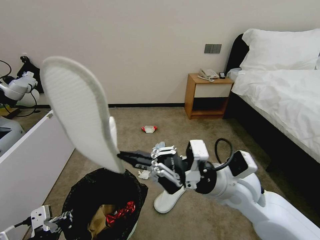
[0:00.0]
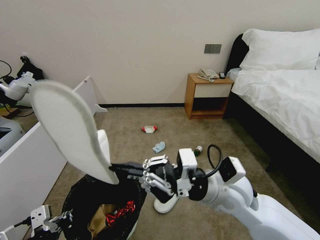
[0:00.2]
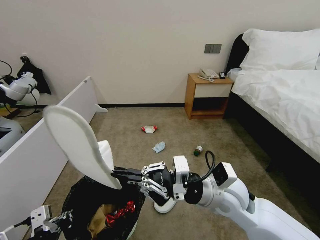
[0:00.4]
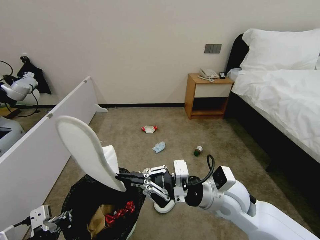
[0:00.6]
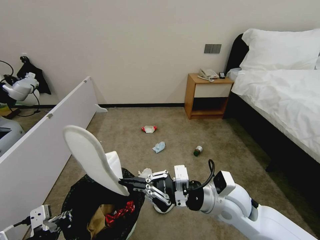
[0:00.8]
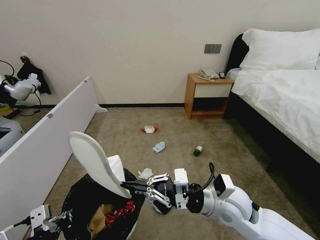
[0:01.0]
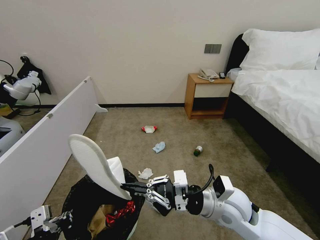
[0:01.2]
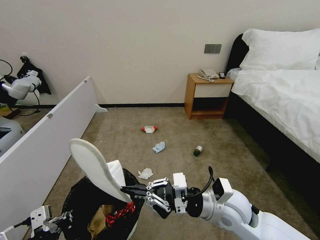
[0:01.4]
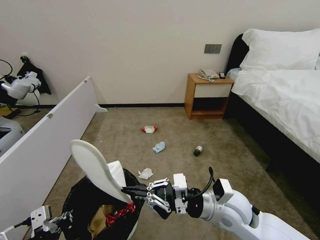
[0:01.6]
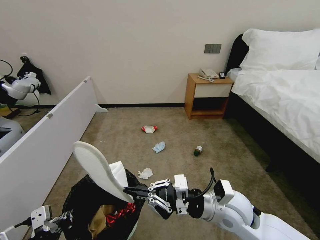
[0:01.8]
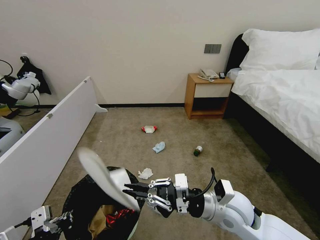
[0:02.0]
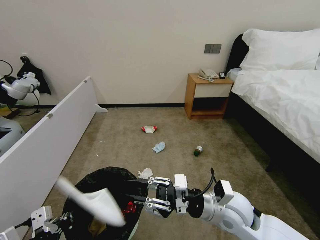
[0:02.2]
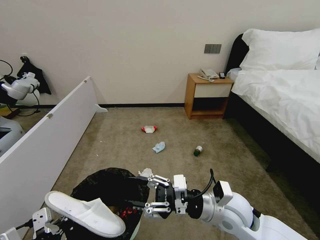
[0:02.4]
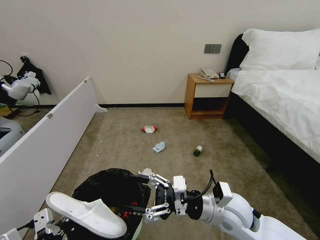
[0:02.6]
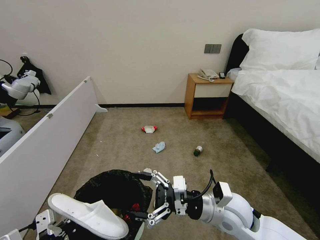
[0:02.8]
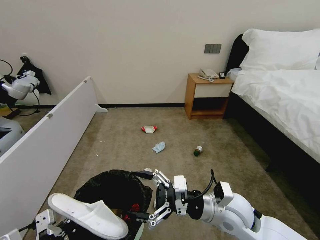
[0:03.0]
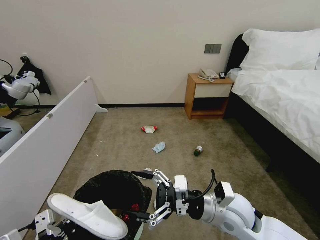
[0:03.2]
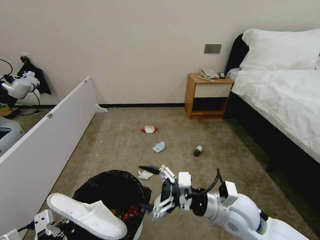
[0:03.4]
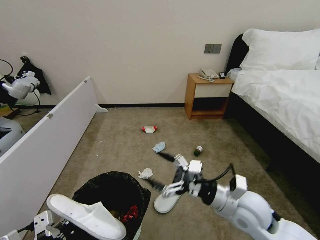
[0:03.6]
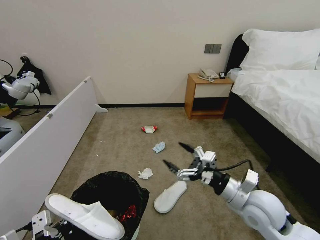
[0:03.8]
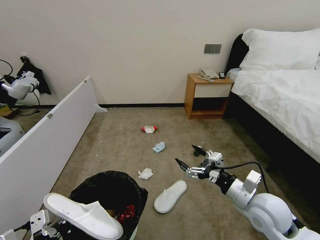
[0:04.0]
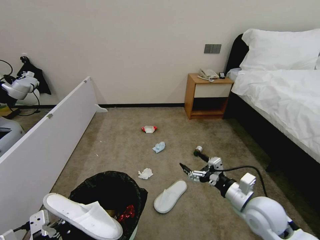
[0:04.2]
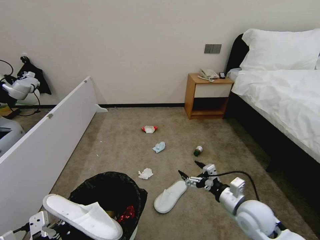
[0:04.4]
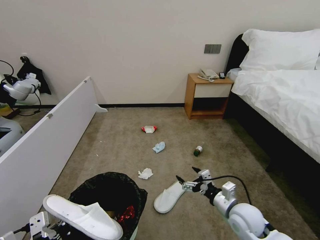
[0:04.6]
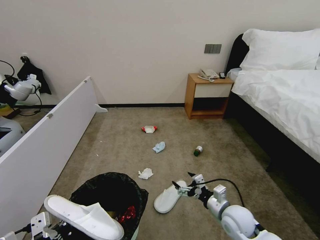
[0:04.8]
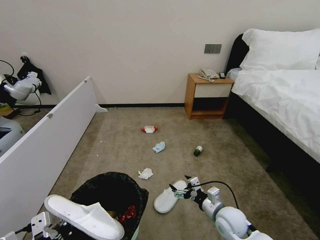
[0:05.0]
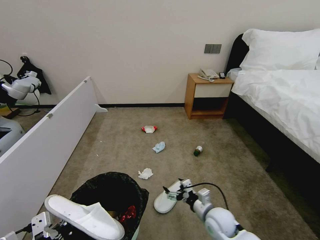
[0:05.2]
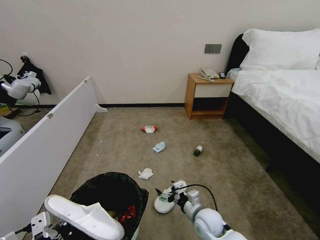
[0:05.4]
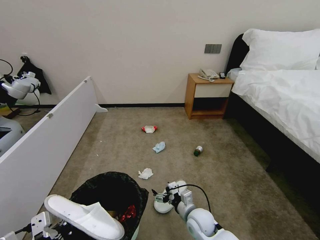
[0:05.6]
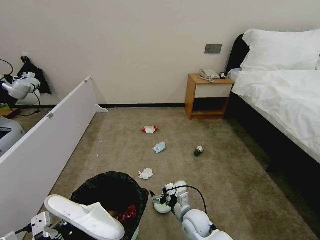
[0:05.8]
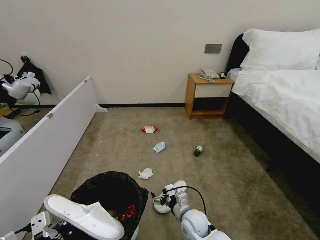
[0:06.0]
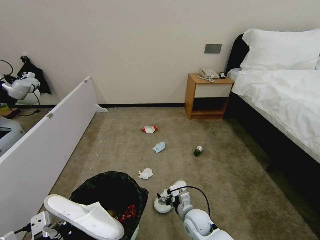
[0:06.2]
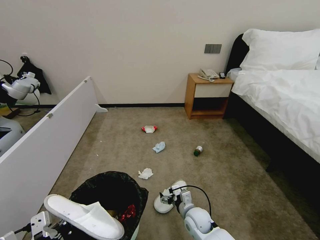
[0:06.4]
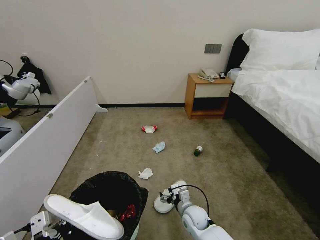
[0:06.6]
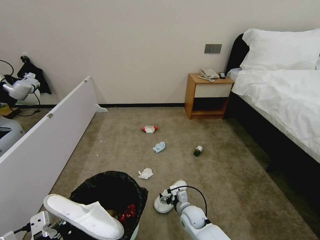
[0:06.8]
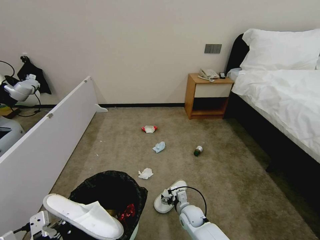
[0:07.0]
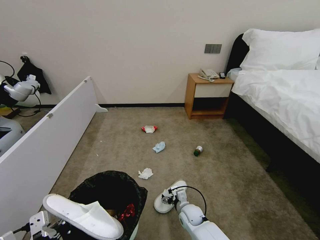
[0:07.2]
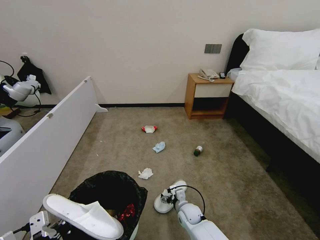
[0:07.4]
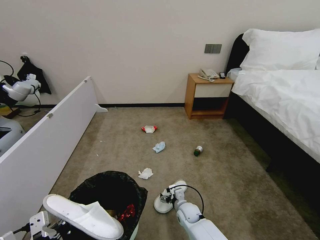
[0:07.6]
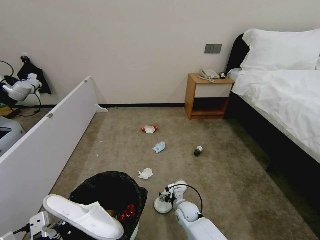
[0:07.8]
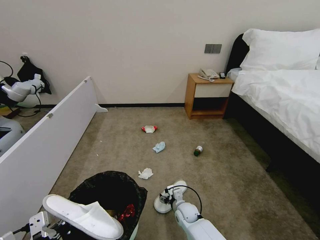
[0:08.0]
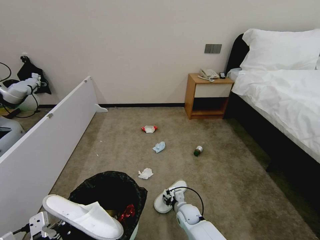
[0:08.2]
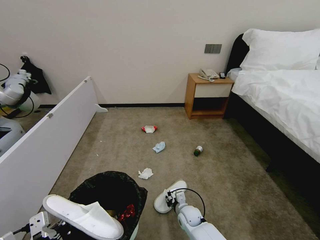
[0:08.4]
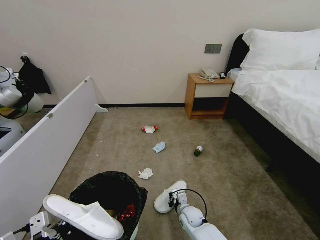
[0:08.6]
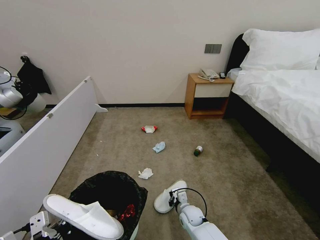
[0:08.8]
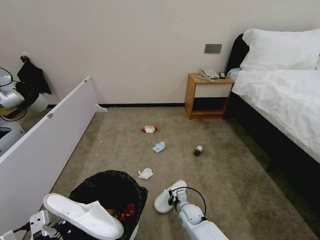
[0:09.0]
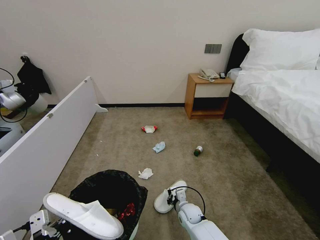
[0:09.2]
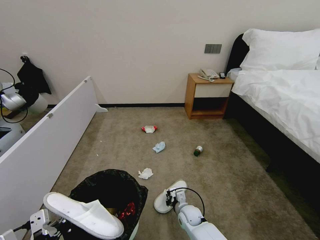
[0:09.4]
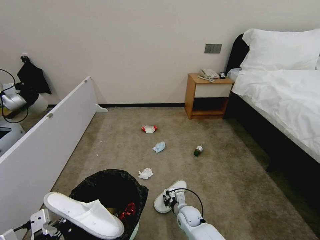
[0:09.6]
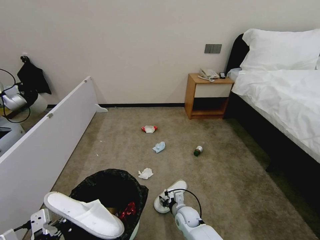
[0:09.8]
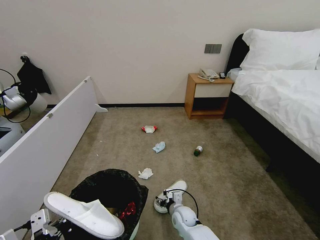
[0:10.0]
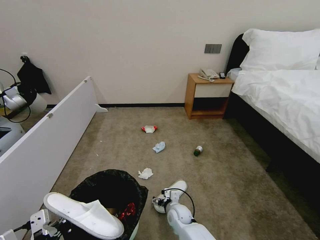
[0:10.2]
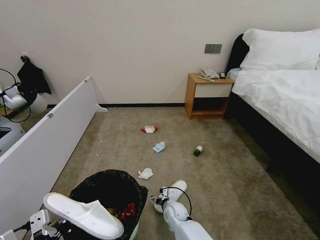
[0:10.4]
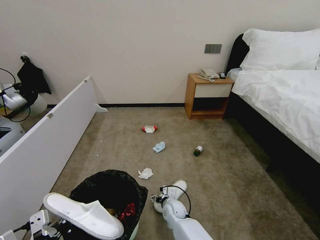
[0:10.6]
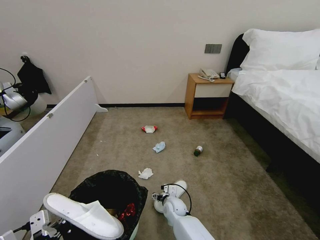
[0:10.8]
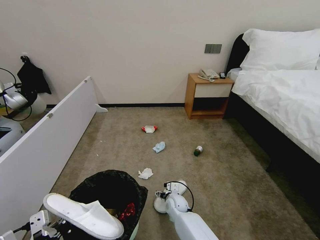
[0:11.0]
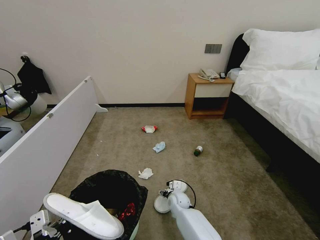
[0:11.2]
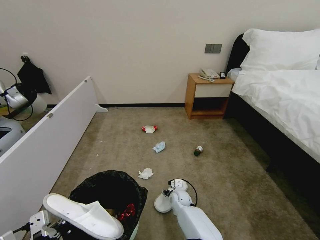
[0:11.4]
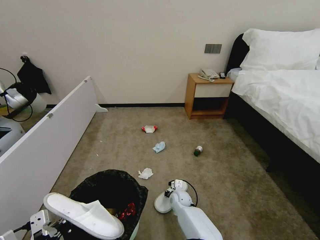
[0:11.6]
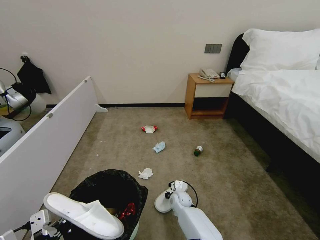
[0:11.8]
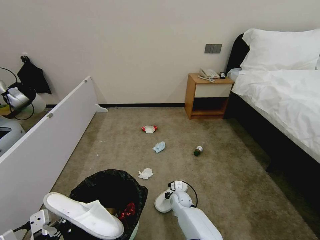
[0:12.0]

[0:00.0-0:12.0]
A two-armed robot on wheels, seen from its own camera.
Task of the whole recording: Pick up the trash bin, then pick up the garbage from the floor and place it into the trash bin.
0:00.0 to 0:01.6: The right gripper shifts about 10 cm downward.
0:01.6 to 0:03.0: The right gripper opens its fingers.
0:03.0 to 0:04.4: The right gripper goes approximately 10 cm to the right and downward.
0:04.4 to 0:06.0: The right gripper goes roughly 20 cm to the left and downward.
0:06.0 to 0:07.6: The right gripper is displaced downward and forward by approximately 10 cm.
0:07.6 to 0:09.0: The right gripper closes.
0:09.0 to 0:10.4: The right gripper heads to the left, covering about 5 cm, and opens.
0:10.4 to 0:12.0: The right gripper goes roughly 5 cm forward, and closes.

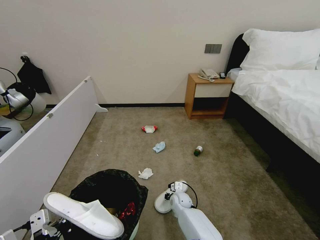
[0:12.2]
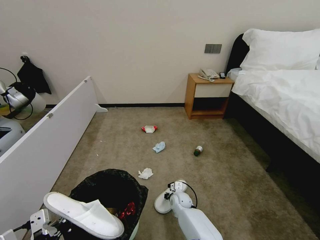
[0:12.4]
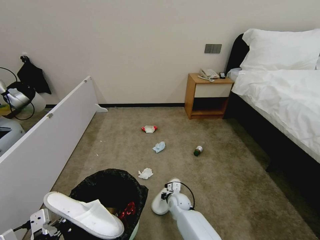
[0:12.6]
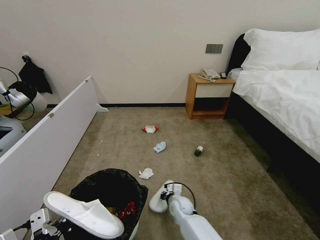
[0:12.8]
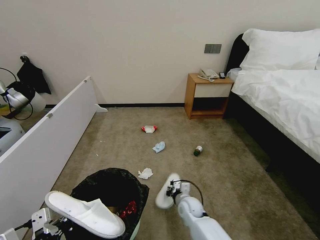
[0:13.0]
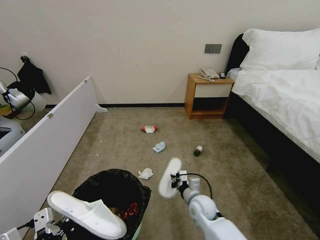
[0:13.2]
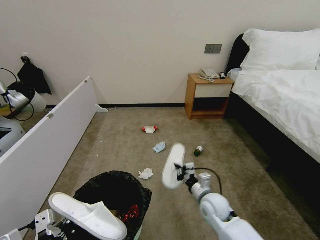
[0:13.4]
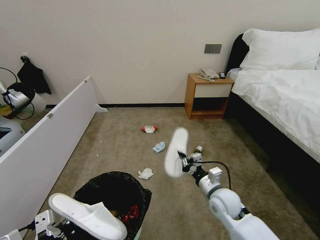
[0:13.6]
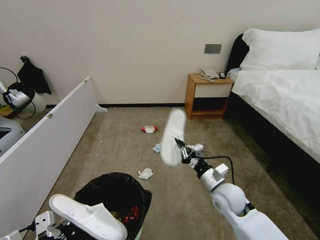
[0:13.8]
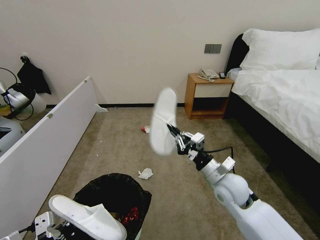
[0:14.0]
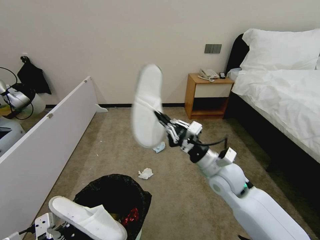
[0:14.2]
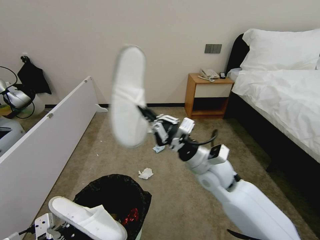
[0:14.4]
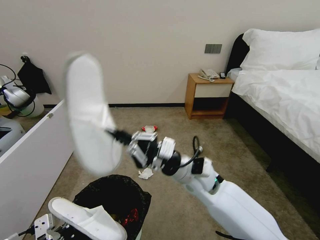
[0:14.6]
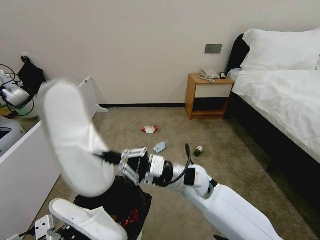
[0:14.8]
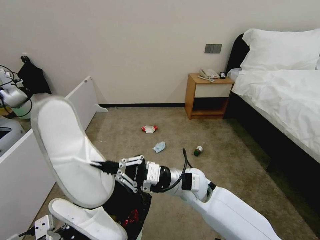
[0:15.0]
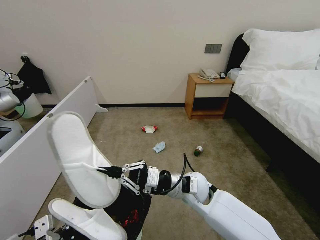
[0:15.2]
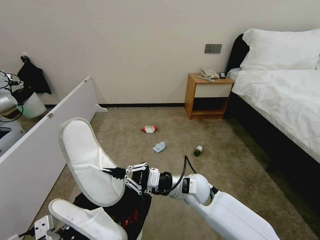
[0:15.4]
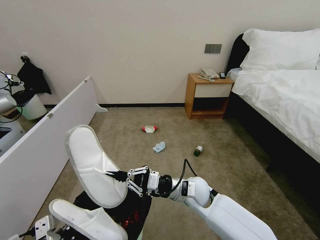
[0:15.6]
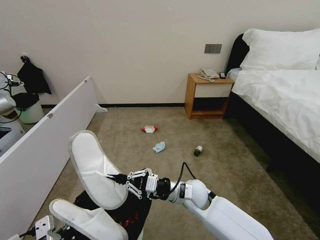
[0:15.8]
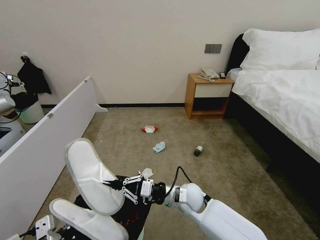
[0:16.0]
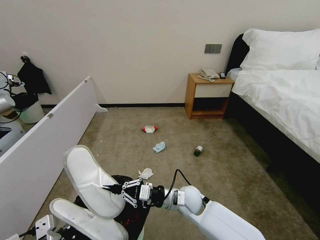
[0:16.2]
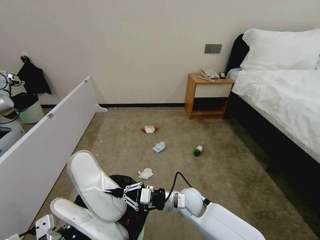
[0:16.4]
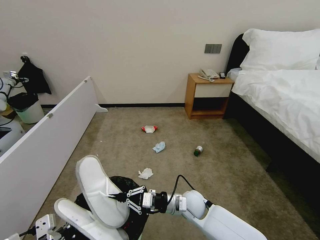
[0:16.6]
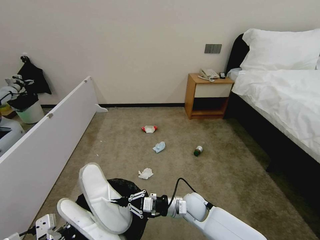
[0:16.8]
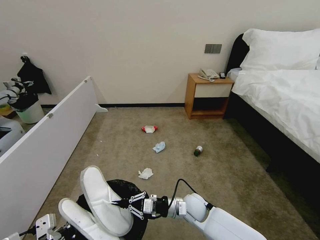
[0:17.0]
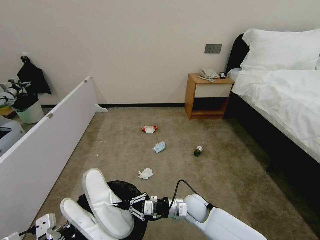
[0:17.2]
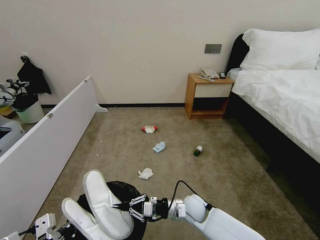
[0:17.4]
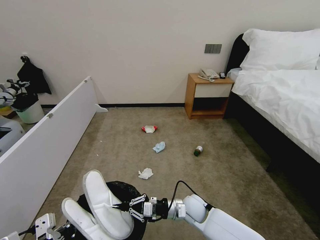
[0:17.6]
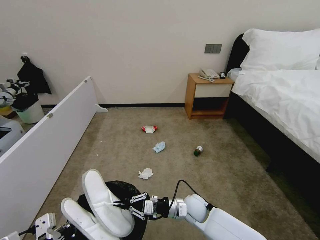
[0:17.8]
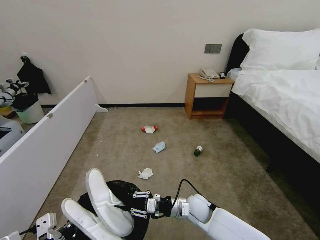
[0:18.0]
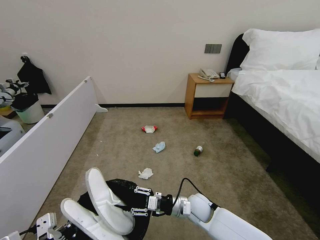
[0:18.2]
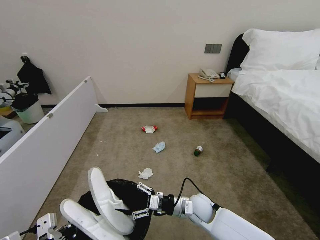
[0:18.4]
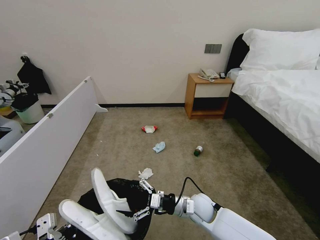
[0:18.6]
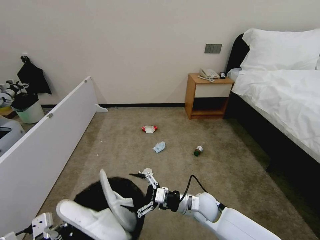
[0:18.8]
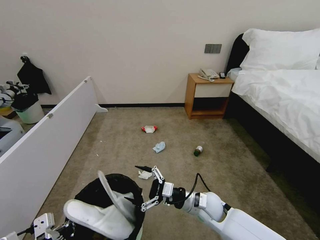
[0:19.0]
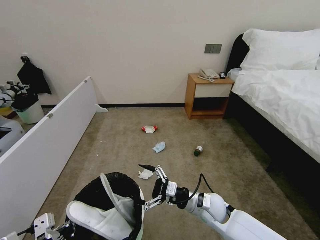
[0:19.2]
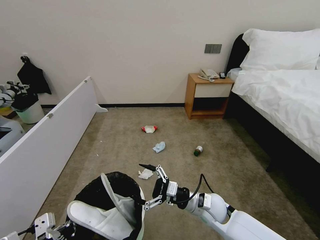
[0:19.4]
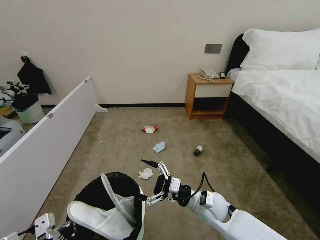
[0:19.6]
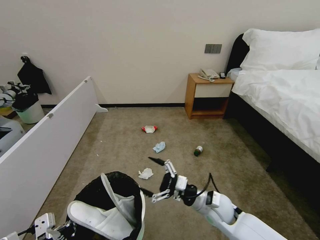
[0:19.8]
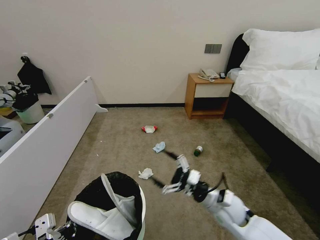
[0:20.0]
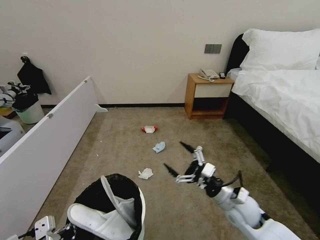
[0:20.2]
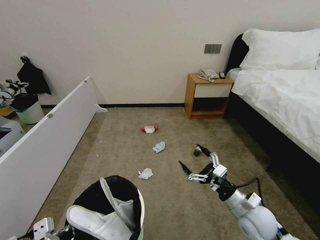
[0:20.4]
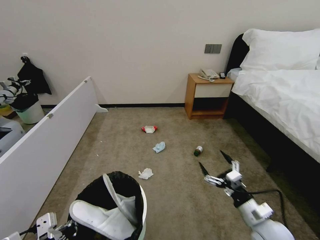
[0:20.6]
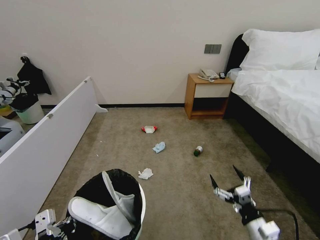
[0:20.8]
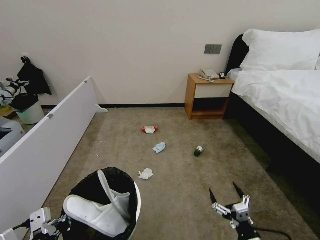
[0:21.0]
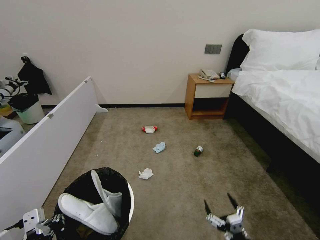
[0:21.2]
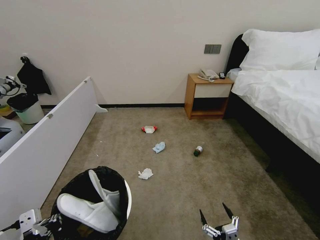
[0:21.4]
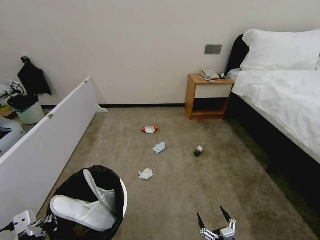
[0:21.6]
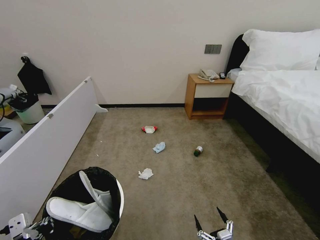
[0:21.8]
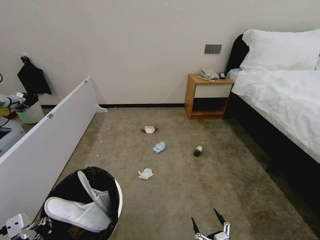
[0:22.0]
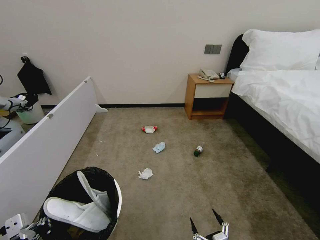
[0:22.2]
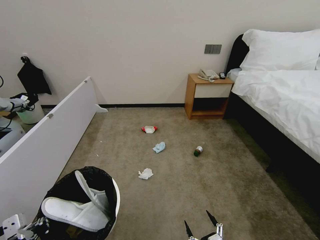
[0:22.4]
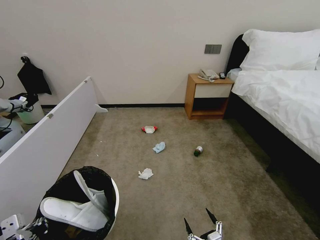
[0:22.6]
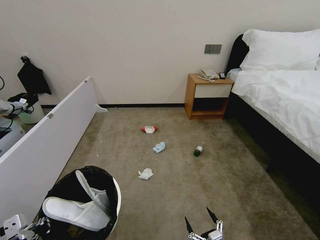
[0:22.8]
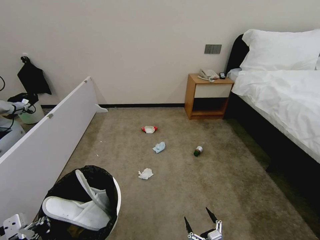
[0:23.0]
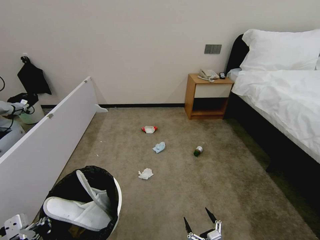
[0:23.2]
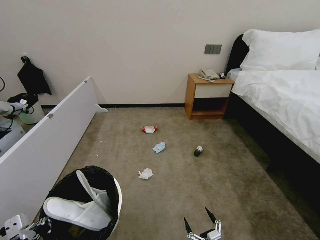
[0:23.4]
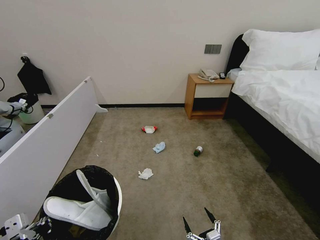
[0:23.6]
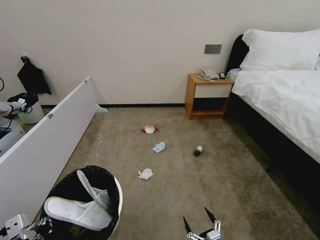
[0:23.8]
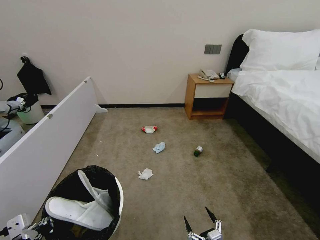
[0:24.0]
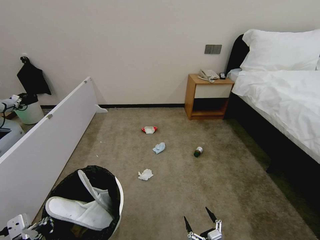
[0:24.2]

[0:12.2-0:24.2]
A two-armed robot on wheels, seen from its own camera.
Task of the whole recording: Pick up the trash bin, then pick up the garbage from the floor and place it into the trash bin.
0:12.2 to 0:13.8: The right gripper goes some 25 cm upward and to the right.
0:13.8 to 0:15.2: The right gripper heads to the left, covering some 10 cm.
0:15.2 to 0:16.6: The right gripper shifts about 10 cm downward.
0:16.6 to 0:18.2: The right gripper opens.
0:18.2 to 0:19.8: The right gripper moves some 5 cm, and opens its fingers.
0:19.8 to 0:21.2: The right gripper heads backward and to the right, covering some 20 cm.
0:21.2 to 0:22.6: The right gripper shifts by about 5 cm.
0:22.6 to 0:24.2: Neither gripper changes place.
